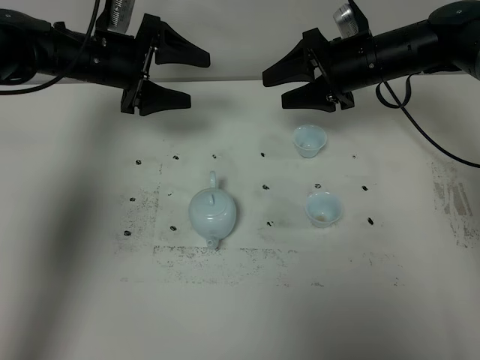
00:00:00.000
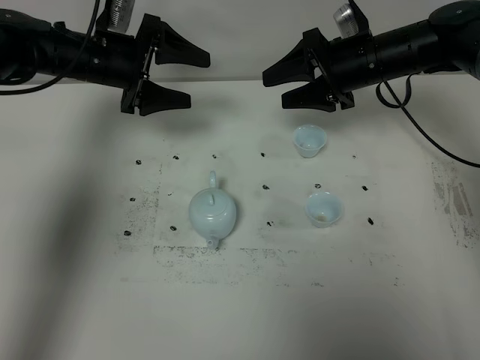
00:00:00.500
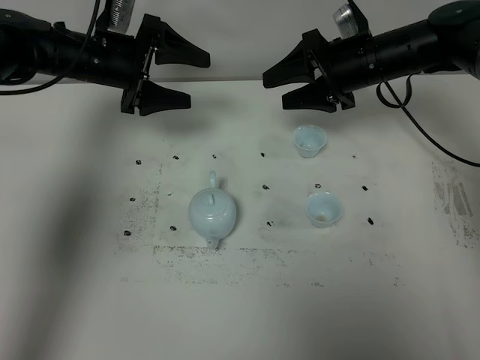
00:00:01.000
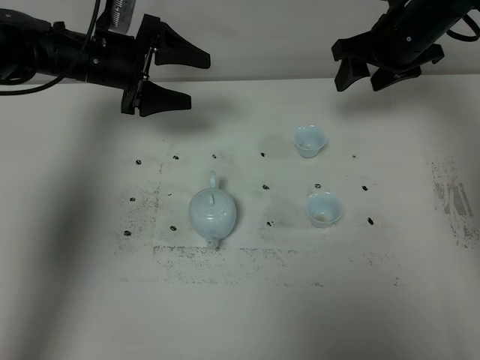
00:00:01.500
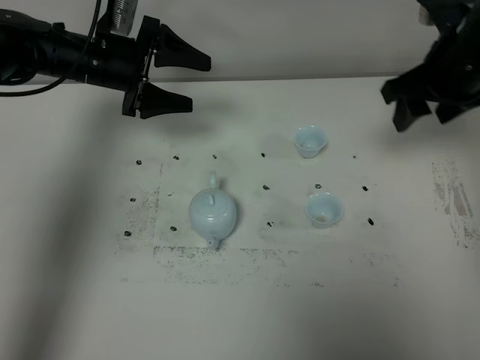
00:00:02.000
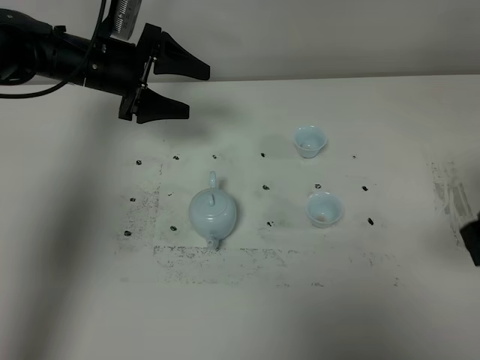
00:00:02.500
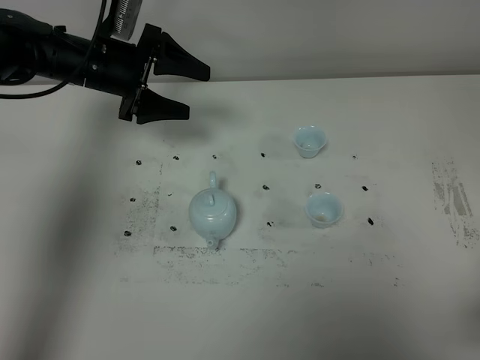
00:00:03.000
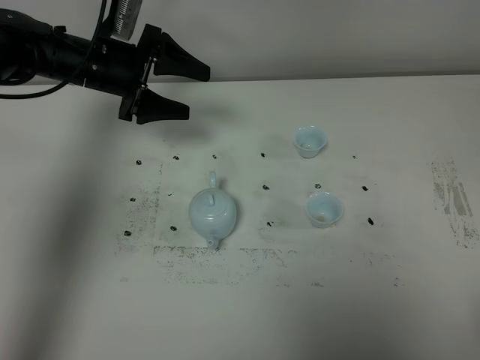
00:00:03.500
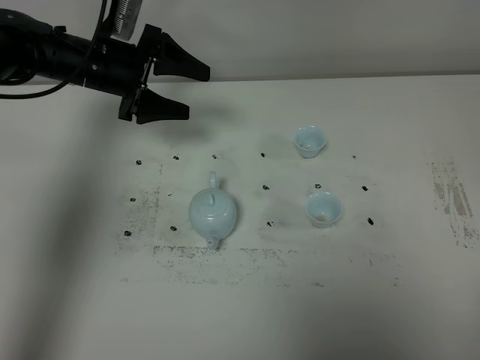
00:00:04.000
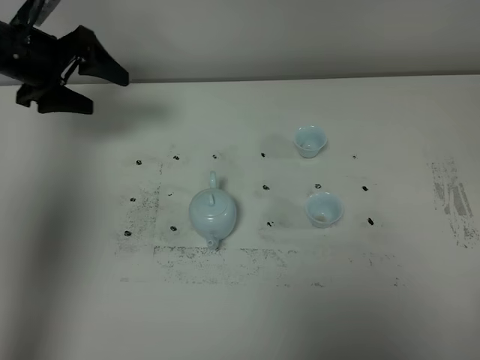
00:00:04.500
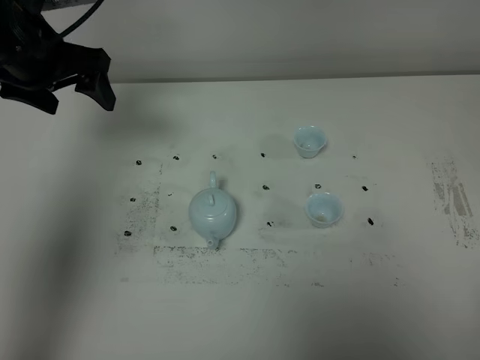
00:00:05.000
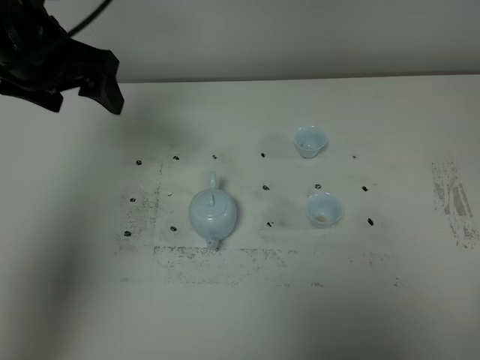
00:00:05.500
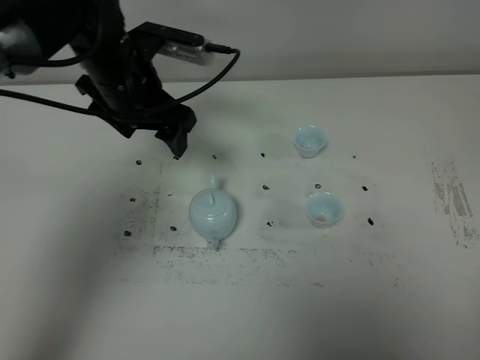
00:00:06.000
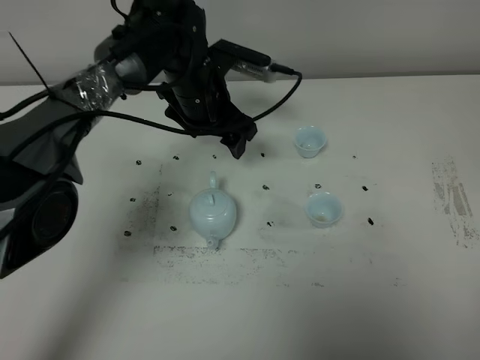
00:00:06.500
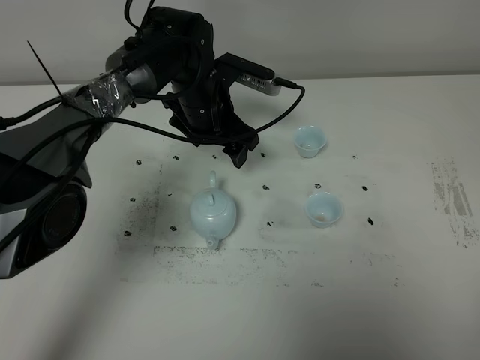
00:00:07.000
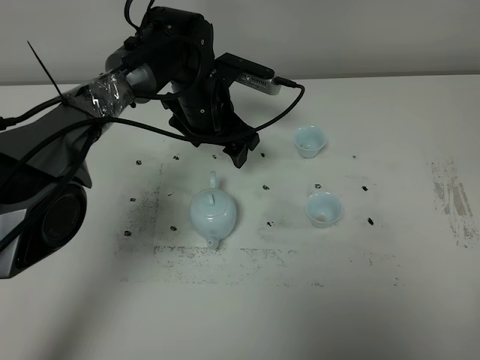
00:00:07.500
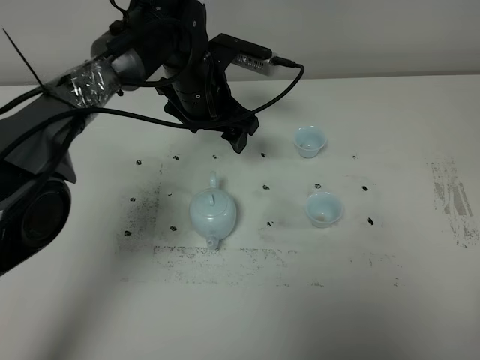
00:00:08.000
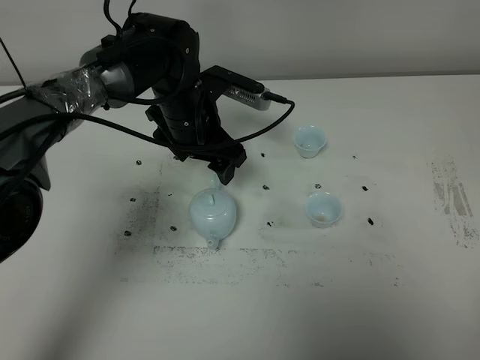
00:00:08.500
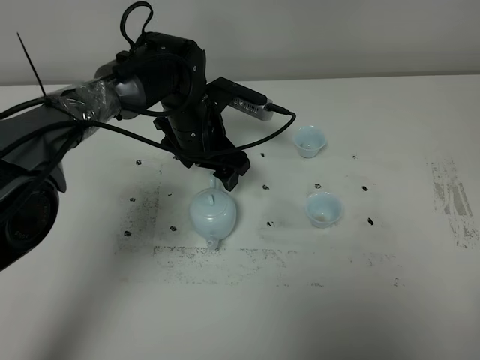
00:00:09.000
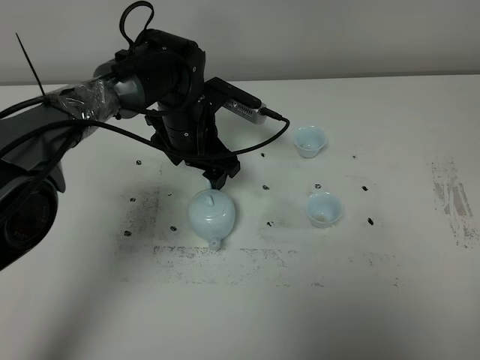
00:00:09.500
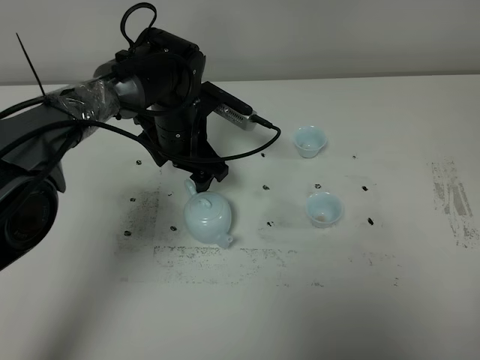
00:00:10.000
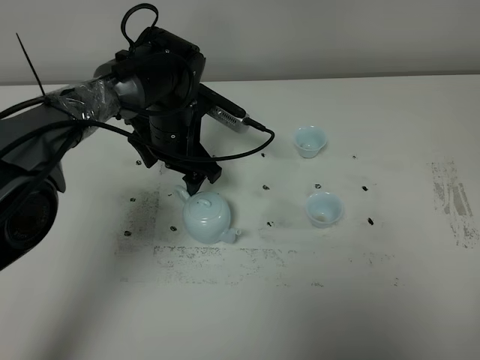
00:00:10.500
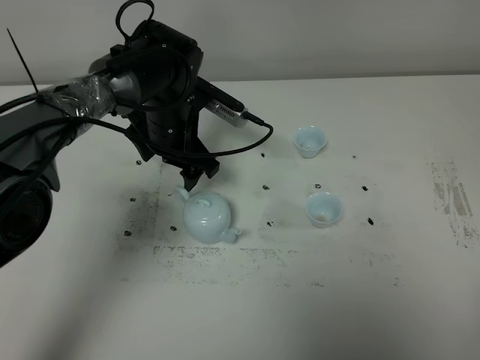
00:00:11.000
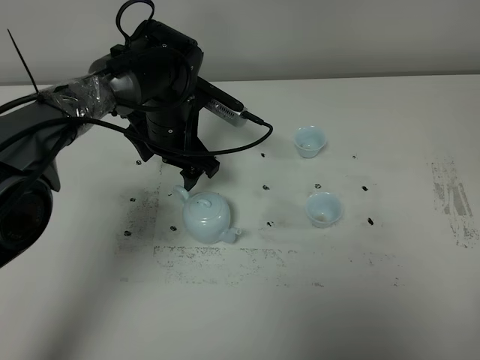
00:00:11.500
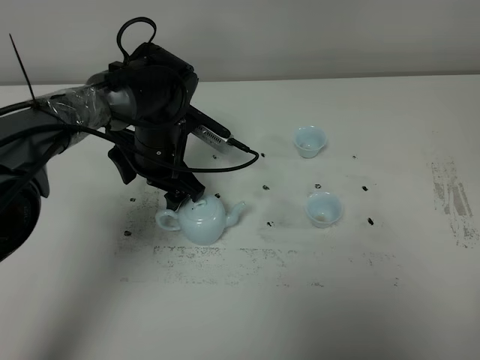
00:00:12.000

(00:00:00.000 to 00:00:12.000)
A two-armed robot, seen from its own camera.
Task of the whole recording: grasp the blue porcelain teapot and pour the tea into the two blue porcelain teacups one by one, put the blue porcelain teapot back in its original place.
00:00:00.000 - 00:00:02.000: The right gripper moves backward, to the right and upward, some 15 cm.
00:00:02.000 - 00:00:04.000: The right gripper goes approximately 40 cm backward.
00:00:04.000 - 00:00:06.000: The left gripper goes approximately 10 cm to the right and backward.
00:00:06.000 - 00:00:08.000: The left gripper heads to the right, covering about 5 cm.
00:00:08.000 - 00:00:10.000: The left gripper travels downward by roughly 5 cm.
00:00:10.000 - 00:00:12.000: The grippers make only small movements.

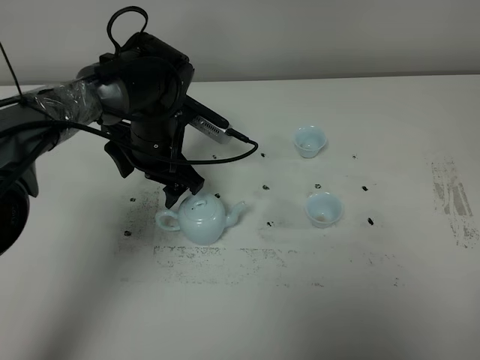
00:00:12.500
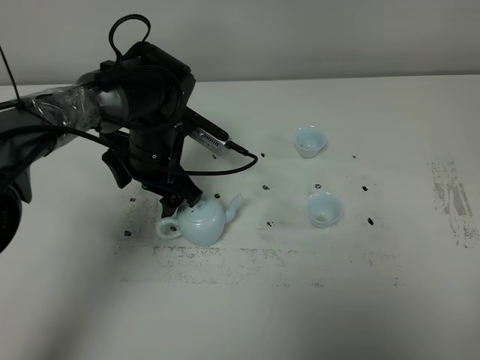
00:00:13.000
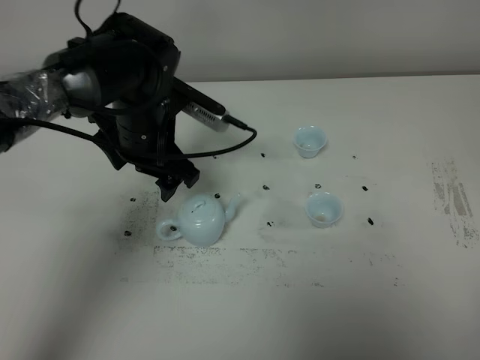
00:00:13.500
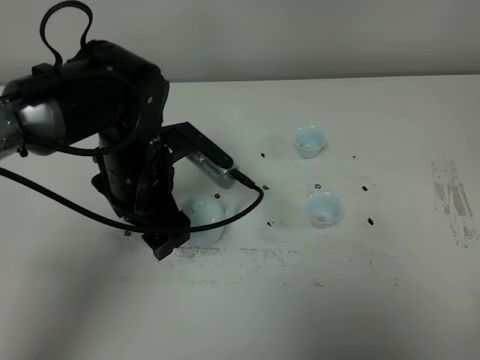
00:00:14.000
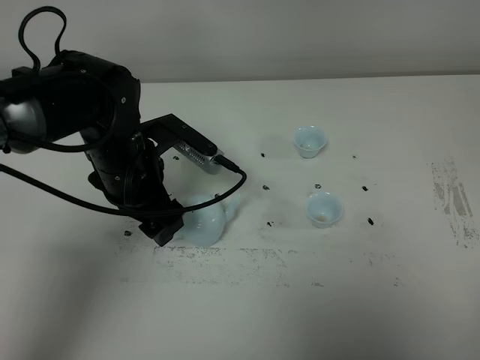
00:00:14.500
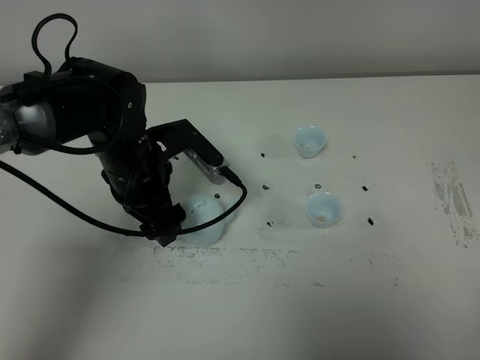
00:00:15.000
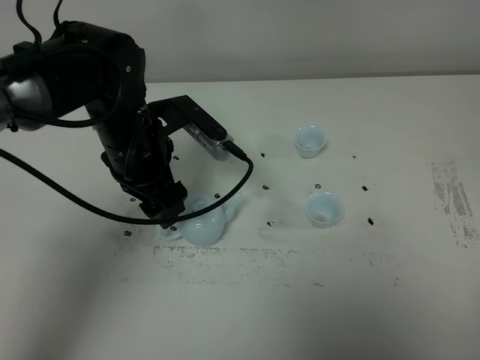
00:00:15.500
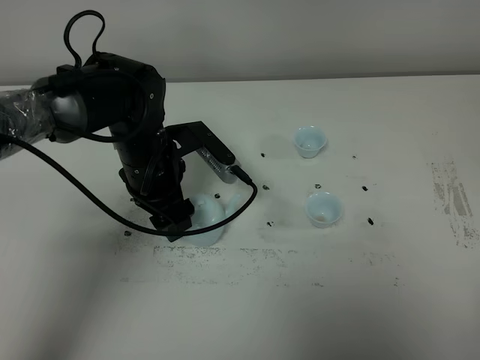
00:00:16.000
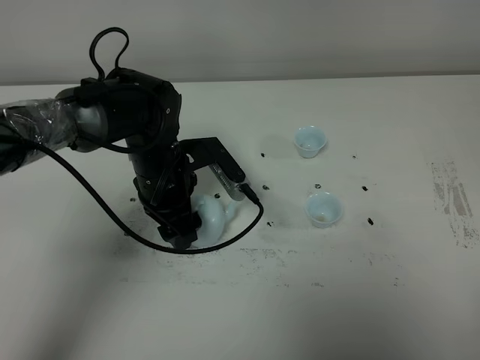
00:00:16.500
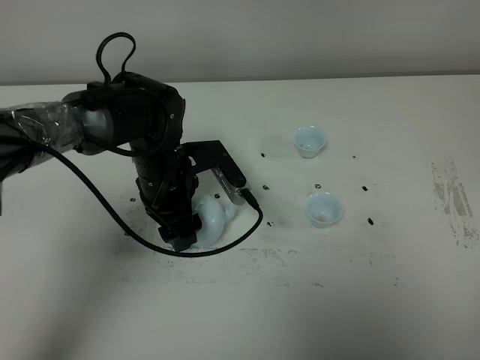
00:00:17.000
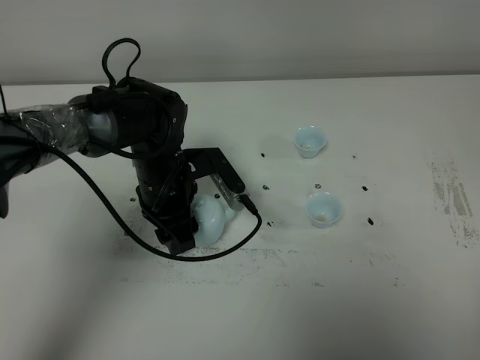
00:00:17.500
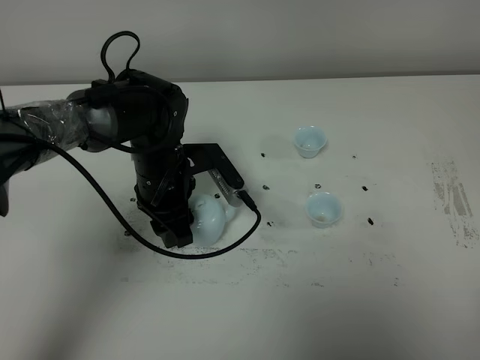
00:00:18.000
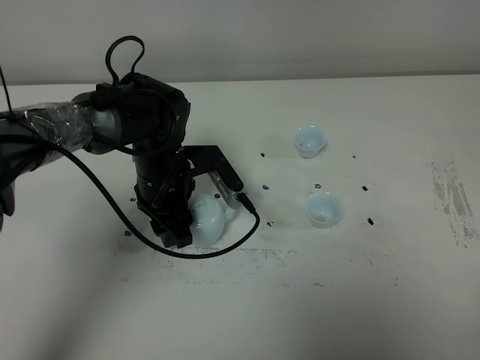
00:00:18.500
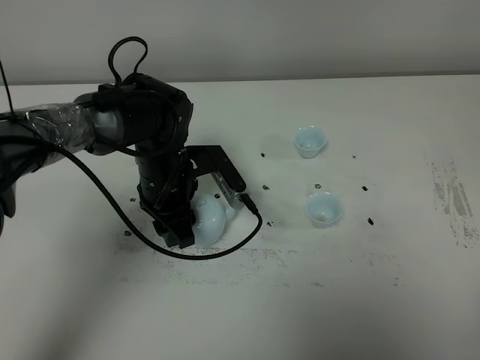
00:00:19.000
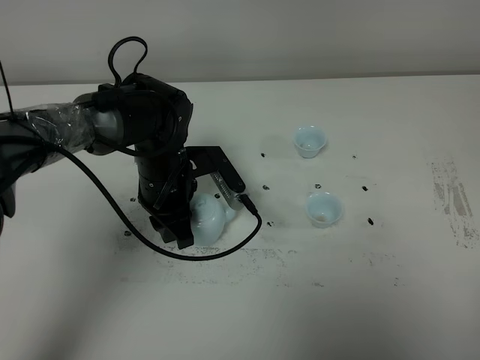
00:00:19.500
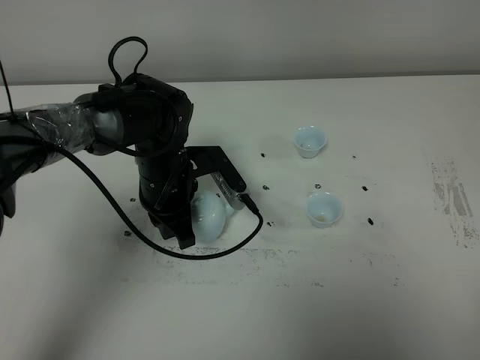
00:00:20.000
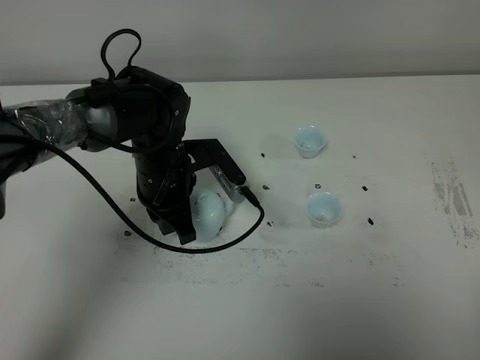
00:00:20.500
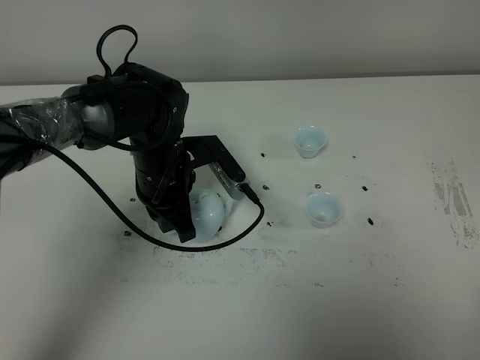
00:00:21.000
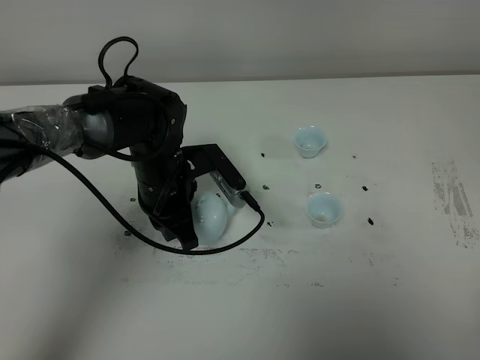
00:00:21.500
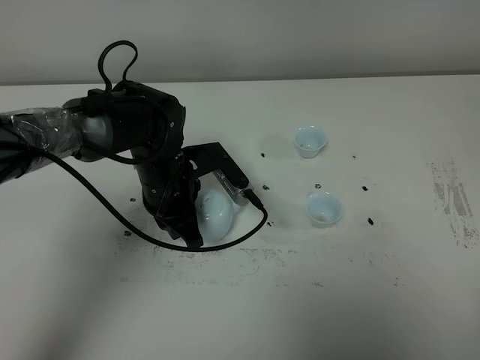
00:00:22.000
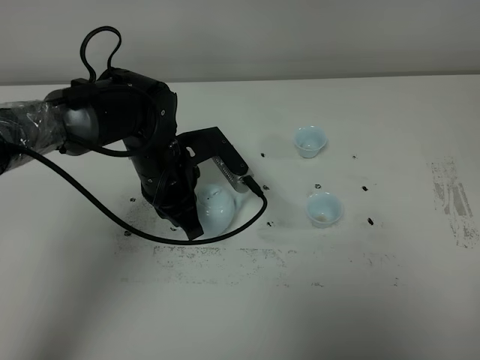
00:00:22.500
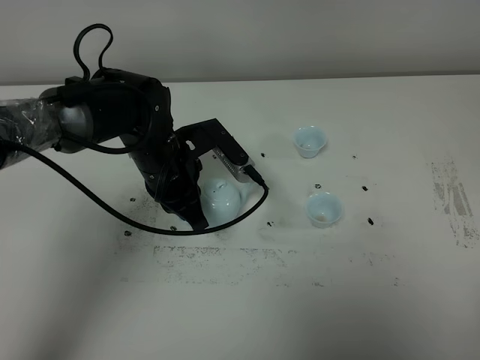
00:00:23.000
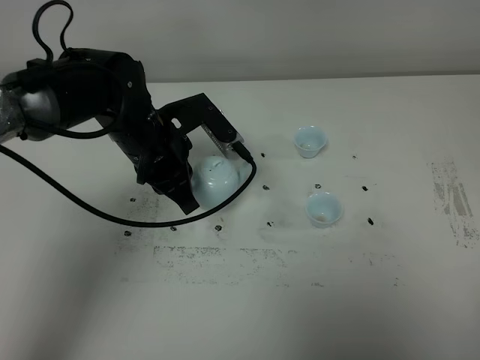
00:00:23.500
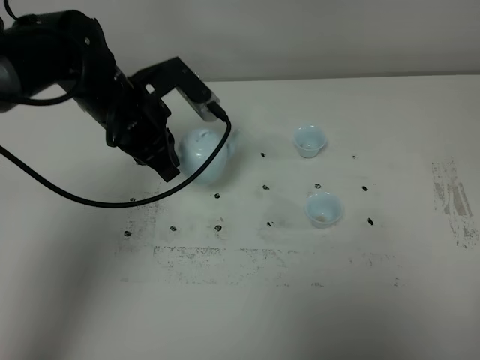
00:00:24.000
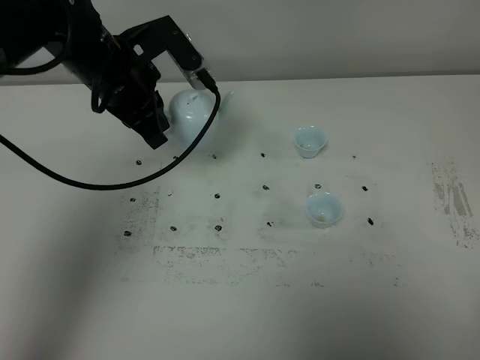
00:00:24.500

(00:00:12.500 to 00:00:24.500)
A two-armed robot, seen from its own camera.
Task of the whole recording: grasp the blue porcelain teapot and pour the tea into the two blue porcelain teacups one by one, put the blue porcelain teapot back in its original place.
00:00:12.500 - 00:00:14.500: The left gripper goes about 10 cm backward.
00:00:14.500 - 00:00:16.500: The left gripper shifts by approximately 5 cm.
00:00:16.500 - 00:00:18.500: The grippers stay close to where they were, moving slightly.
00:00:18.500 - 00:00:20.500: The left gripper closes its fingers.
00:00:20.500 - 00:00:22.500: The grippers stay close to where they were, moving slightly.
00:00:22.500 - 00:00:24.500: The left gripper is displaced upward and forward by approximately 10 cm.

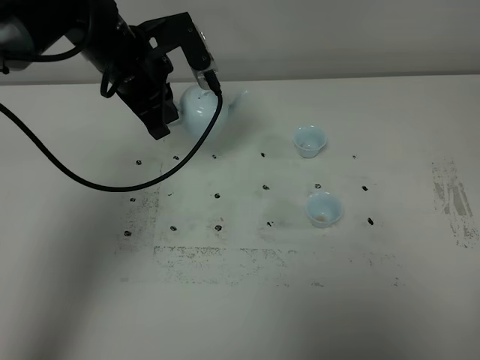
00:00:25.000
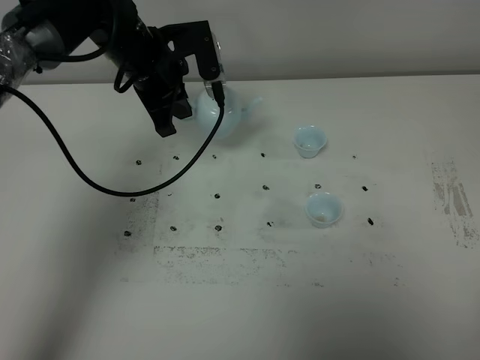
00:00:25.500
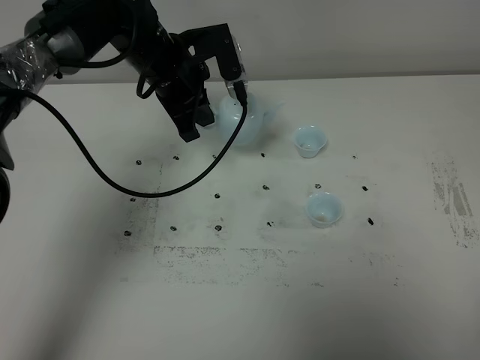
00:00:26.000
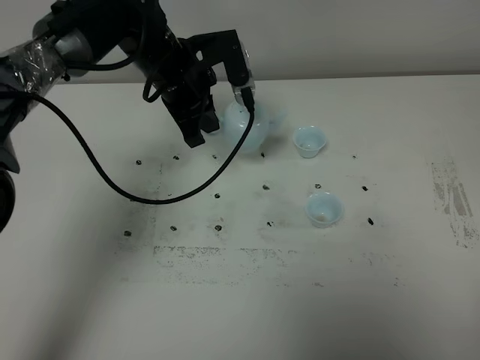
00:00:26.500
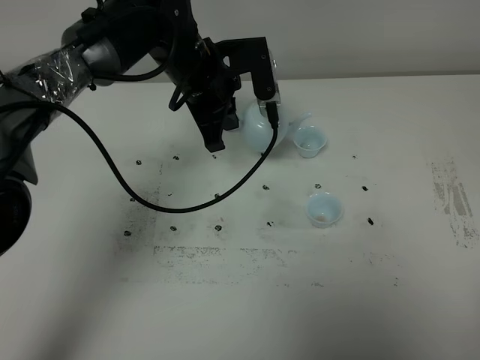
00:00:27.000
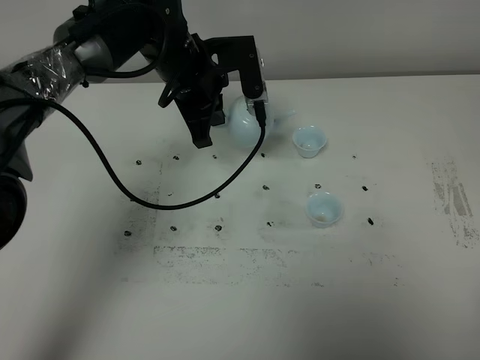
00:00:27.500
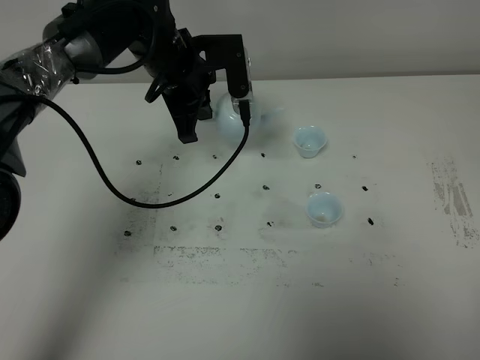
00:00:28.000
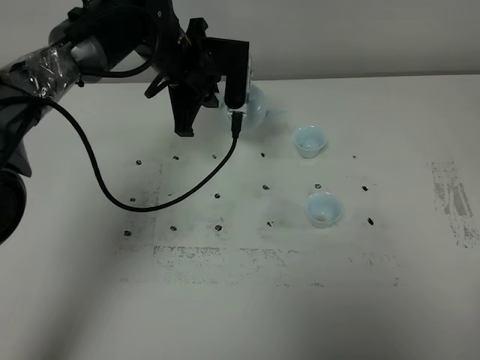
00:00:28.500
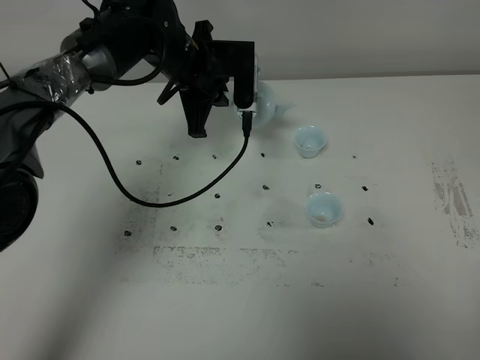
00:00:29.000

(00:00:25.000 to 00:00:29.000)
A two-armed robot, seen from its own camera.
Task of the whole recording: grasp the blue porcelain teapot and pour the tea into the two blue porcelain teacups one by one, put the blue porcelain teapot back in its original place.
00:00:25.000 - 00:00:27.000: The left gripper heads to the right, covering some 10 cm.
00:00:27.000 - 00:00:29.000: There are only small adjustments of the grippers.
